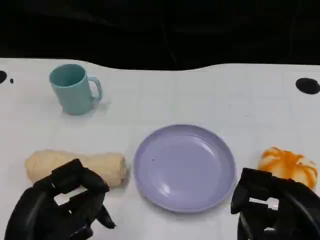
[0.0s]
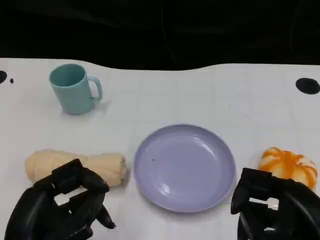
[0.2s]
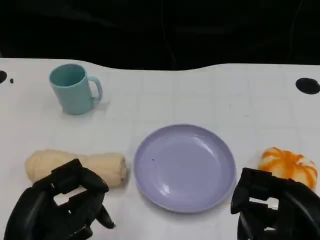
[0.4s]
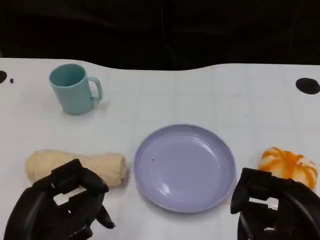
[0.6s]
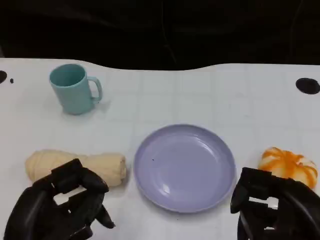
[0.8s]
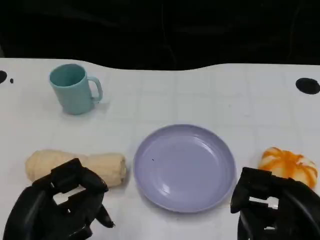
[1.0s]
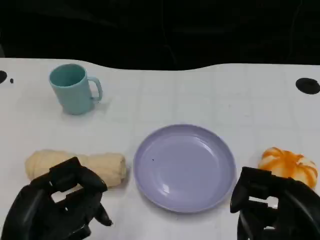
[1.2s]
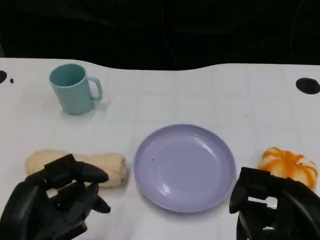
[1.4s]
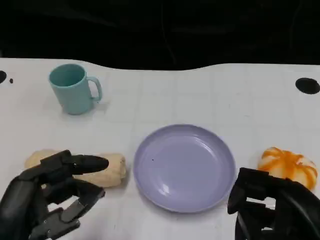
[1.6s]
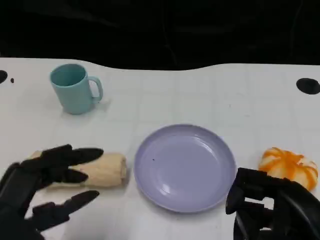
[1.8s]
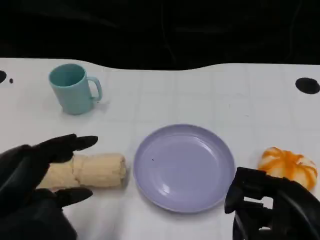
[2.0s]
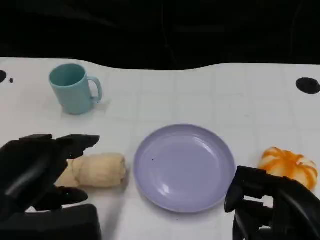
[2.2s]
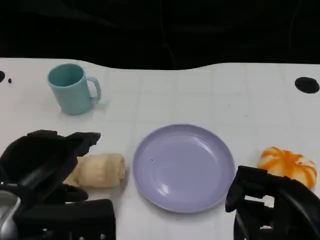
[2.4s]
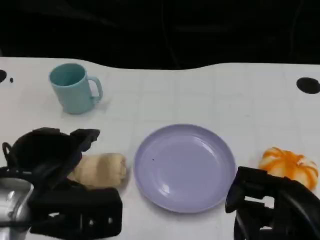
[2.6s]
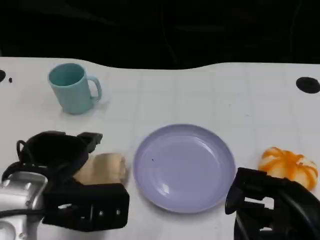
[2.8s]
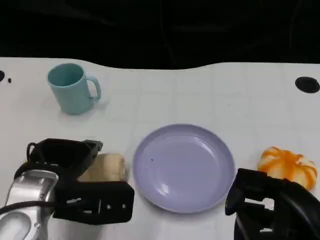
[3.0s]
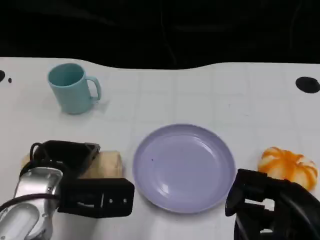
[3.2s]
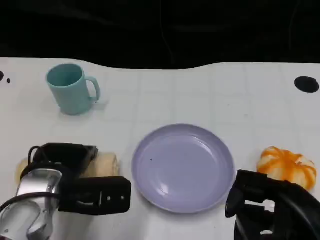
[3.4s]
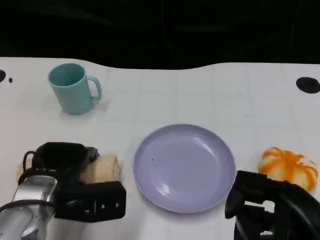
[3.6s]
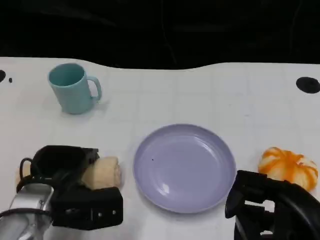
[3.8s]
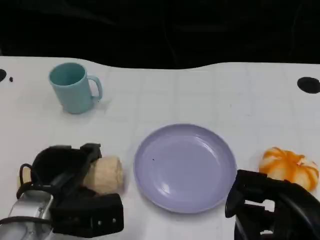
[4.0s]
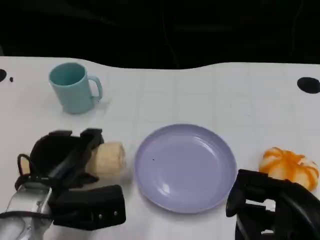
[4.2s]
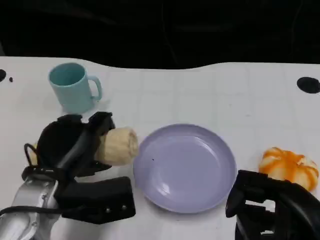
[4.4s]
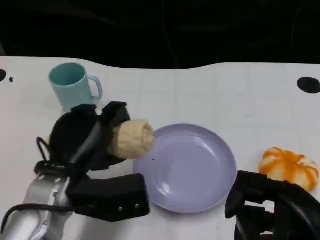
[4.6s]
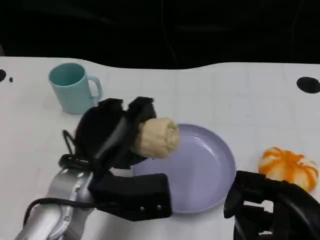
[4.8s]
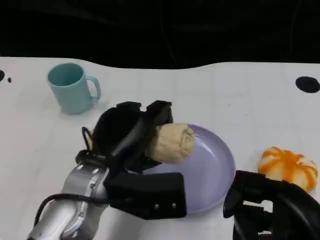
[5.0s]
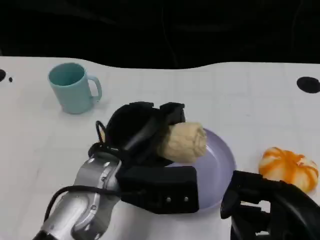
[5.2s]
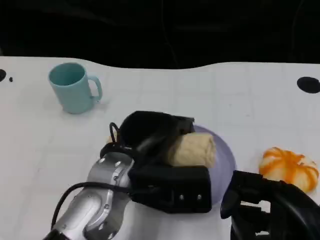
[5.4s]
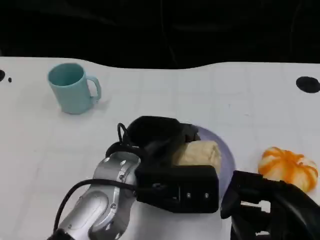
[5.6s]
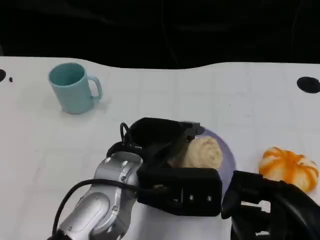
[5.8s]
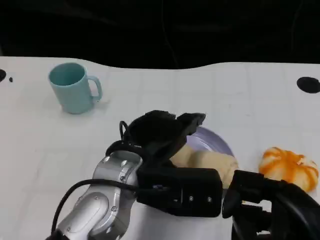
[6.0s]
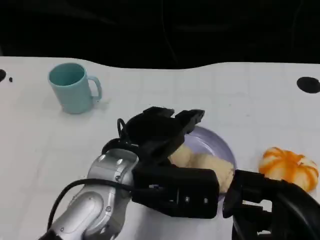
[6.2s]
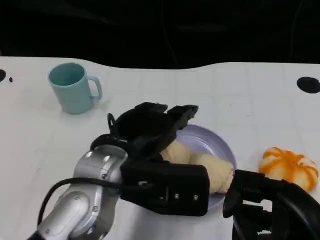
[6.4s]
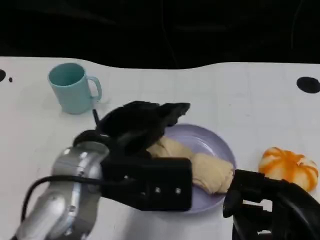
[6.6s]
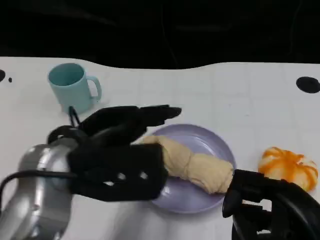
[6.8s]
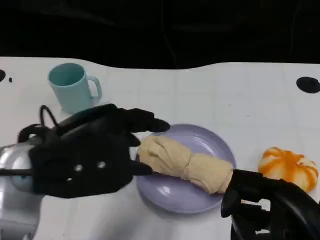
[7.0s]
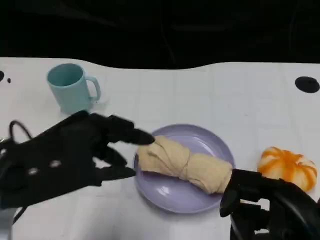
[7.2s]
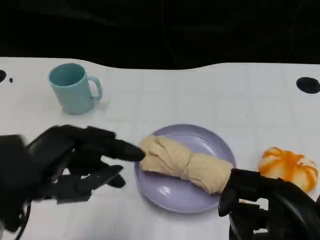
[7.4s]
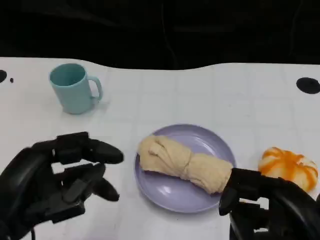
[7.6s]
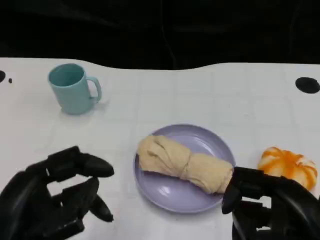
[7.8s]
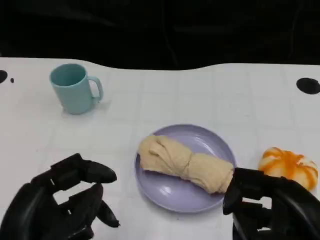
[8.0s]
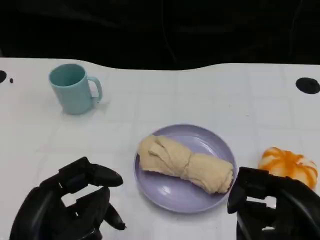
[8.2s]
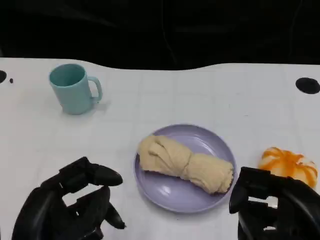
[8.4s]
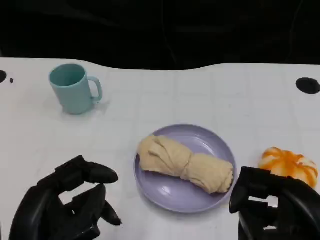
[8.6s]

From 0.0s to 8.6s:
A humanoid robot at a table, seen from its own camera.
Task of the whole recording: Grasp the towel on the left side of the plate with the left hand and place it into the plate.
From 0.0s to 1.4s: The hands make only small movements.
From 1.4s to 2.8s: The left hand travels forward by some 10 cm.
From 4.4s to 5.8s: The left hand is displaced to the right by some 10 cm.
From 5.8s to 7.2s: The left hand travels to the left and upward by some 15 cm.
From 7.2s to 8.6s: The left hand travels downward and backward by approximately 10 cm.

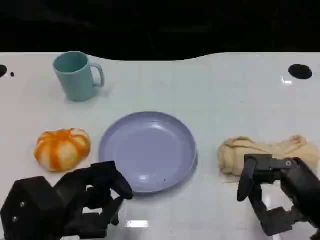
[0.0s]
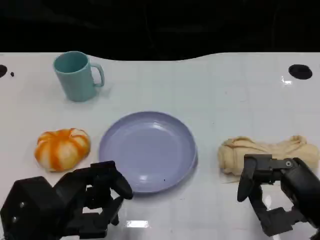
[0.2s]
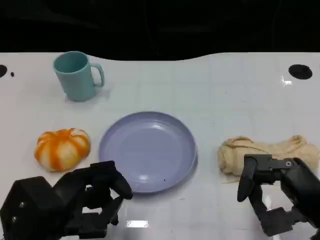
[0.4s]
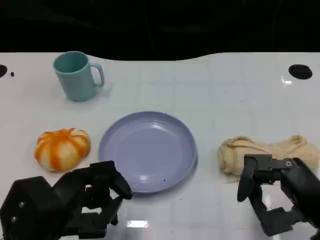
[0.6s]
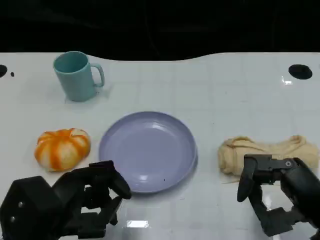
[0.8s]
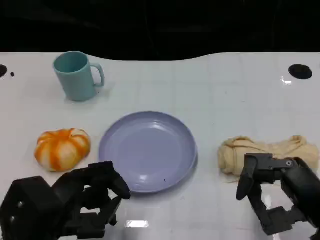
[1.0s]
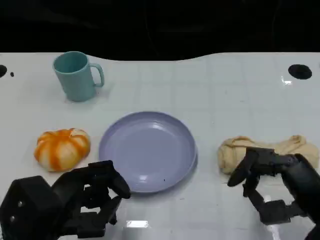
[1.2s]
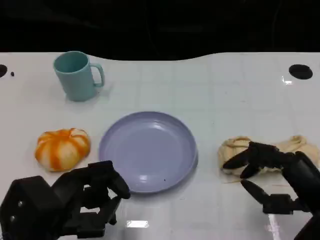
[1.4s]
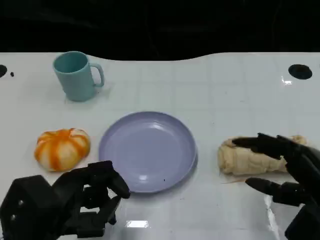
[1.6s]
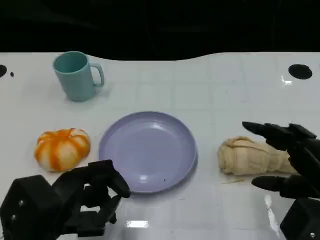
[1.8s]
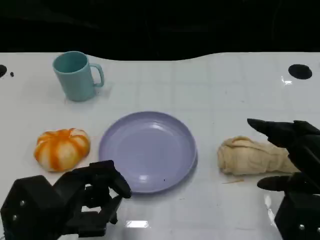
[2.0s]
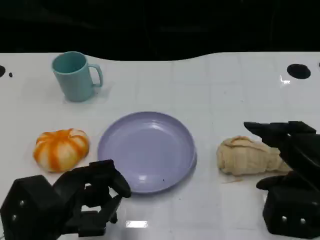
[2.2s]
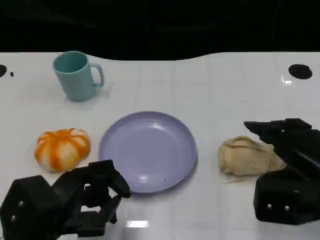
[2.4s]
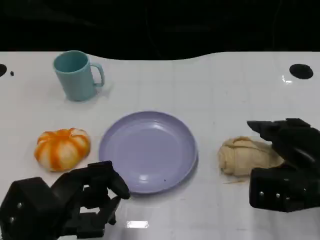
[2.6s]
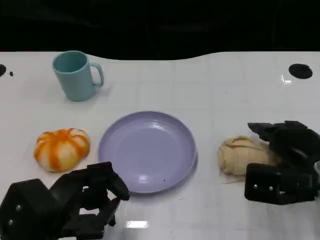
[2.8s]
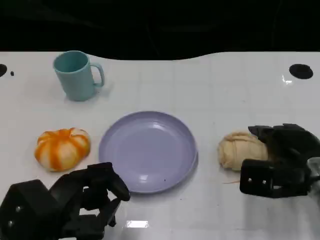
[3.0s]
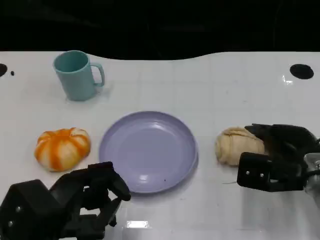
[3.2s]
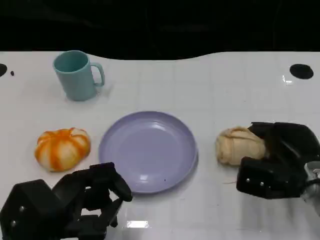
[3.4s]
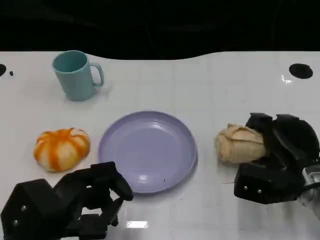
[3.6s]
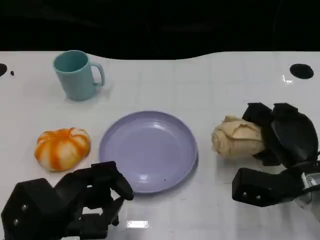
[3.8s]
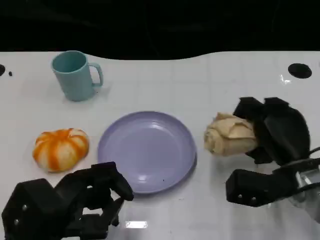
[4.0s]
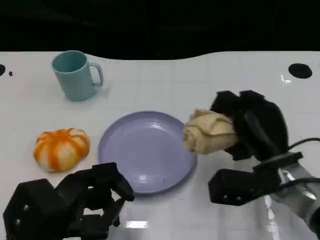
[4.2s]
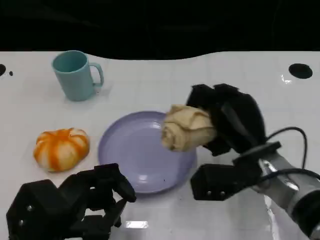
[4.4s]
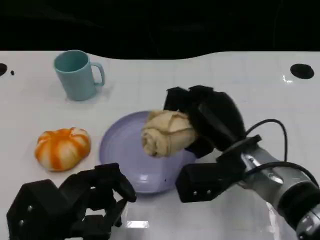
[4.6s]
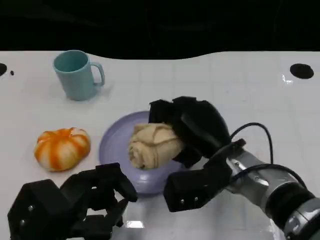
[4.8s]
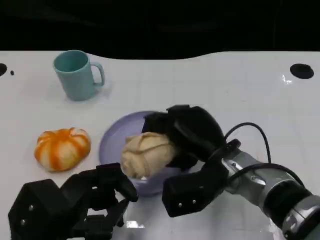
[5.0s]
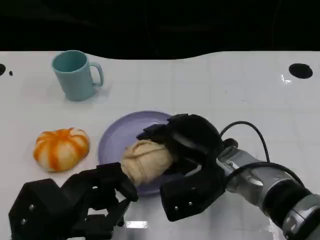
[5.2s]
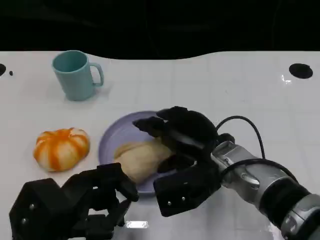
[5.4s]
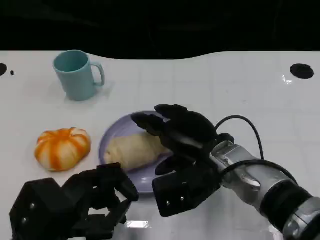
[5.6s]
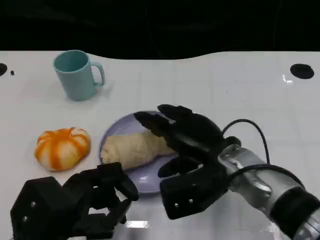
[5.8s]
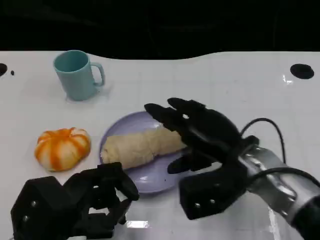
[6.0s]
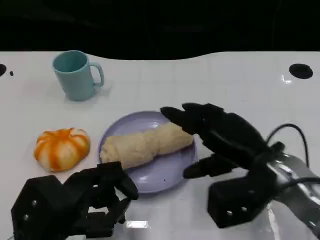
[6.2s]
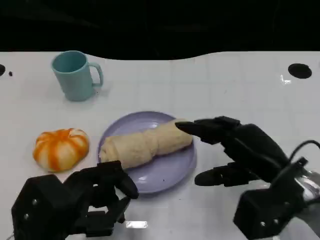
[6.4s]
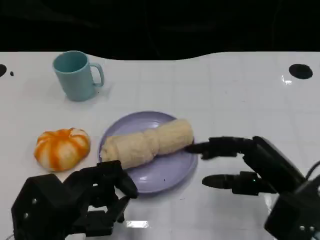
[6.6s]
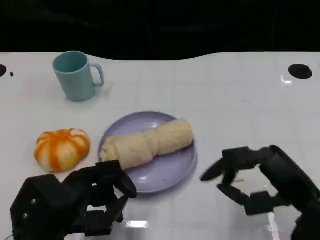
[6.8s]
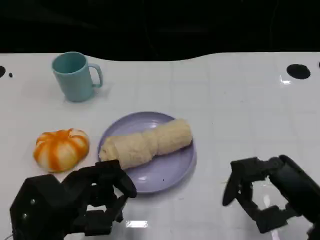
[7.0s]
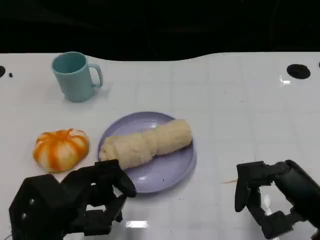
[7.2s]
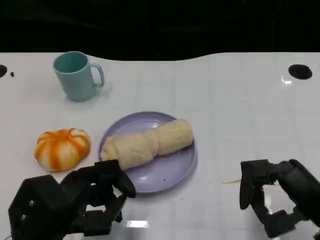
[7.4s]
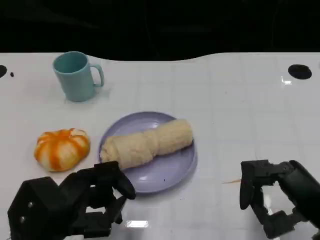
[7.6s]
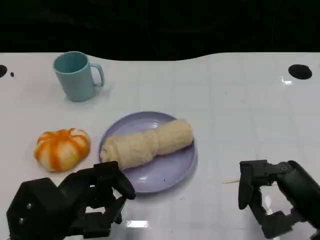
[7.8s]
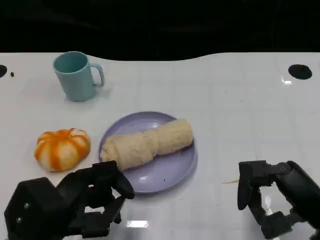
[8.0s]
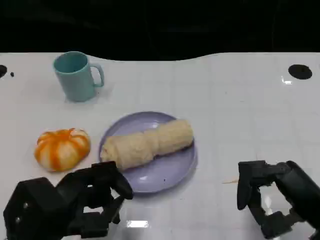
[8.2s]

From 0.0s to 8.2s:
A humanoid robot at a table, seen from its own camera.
Task of the whole recording: Grasp the towel on the left side of the plate with the left hand and place it into the plate.
From 1.6s to 3.2s: The right hand is displaced forward and downward by approximately 10 cm.
From 3.2s to 5.0s: The right hand travels to the left by about 15 cm.
From 5.0s to 6.6s: The right hand heads to the right and backward, covering roughly 15 cm.
From 6.6s to 8.2s: The hands stay close to where they were, moving slightly.

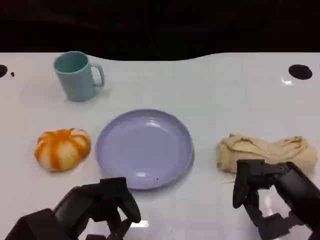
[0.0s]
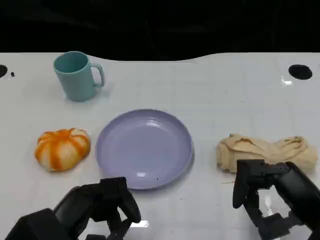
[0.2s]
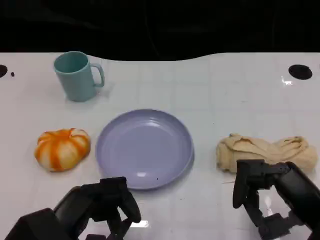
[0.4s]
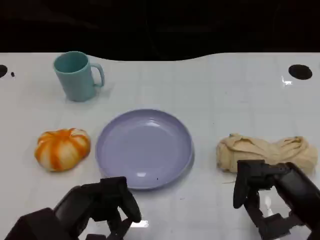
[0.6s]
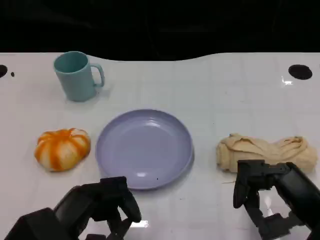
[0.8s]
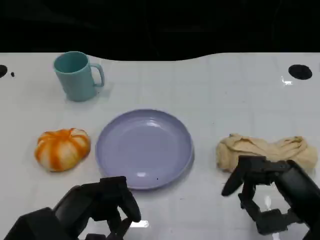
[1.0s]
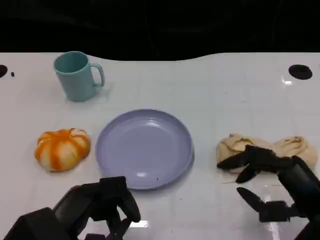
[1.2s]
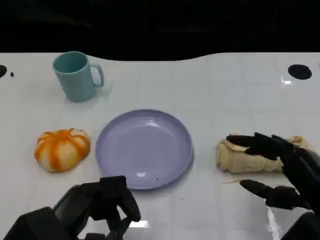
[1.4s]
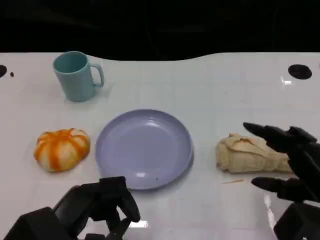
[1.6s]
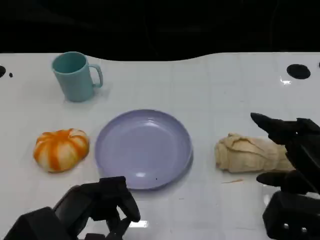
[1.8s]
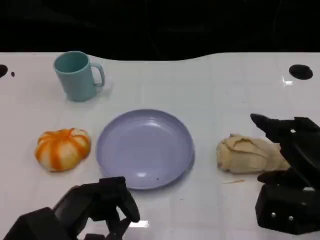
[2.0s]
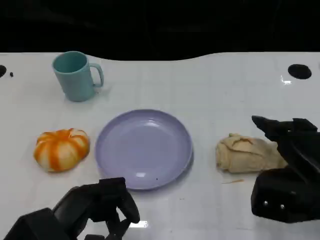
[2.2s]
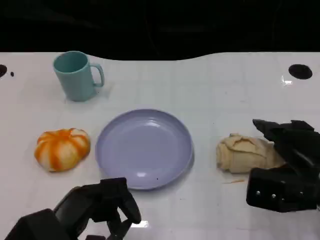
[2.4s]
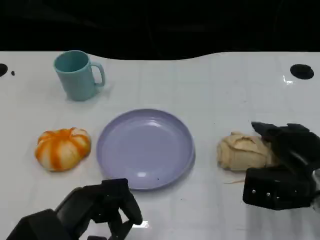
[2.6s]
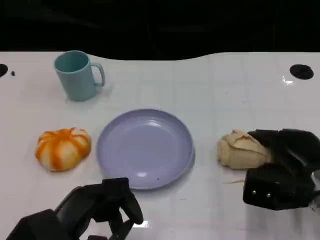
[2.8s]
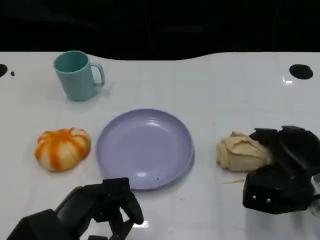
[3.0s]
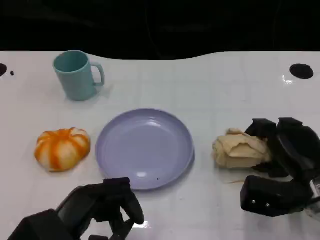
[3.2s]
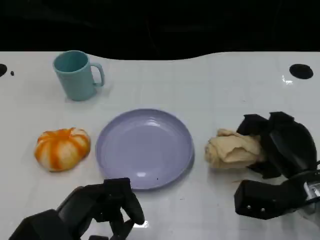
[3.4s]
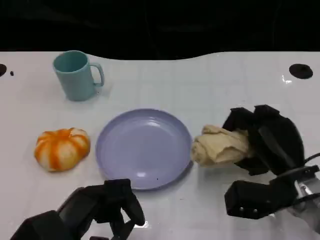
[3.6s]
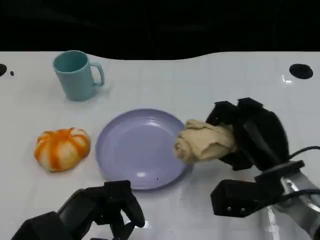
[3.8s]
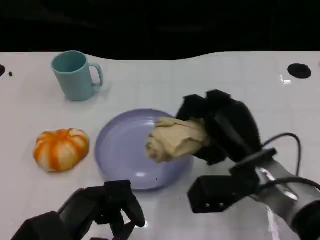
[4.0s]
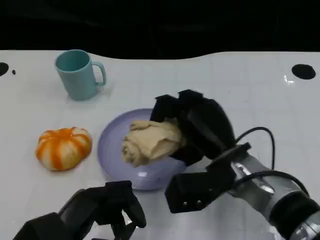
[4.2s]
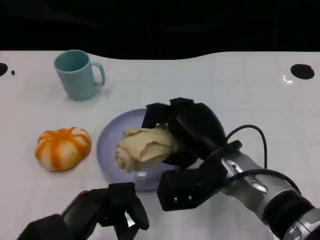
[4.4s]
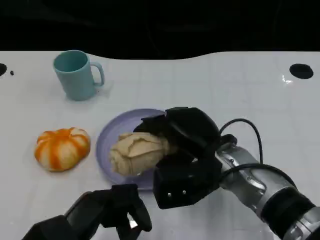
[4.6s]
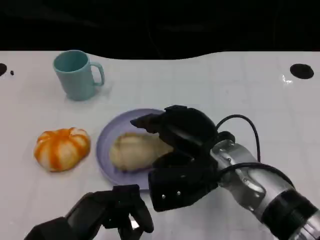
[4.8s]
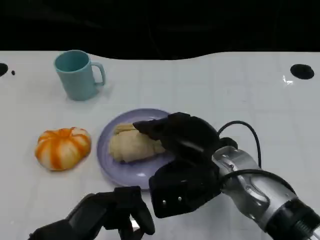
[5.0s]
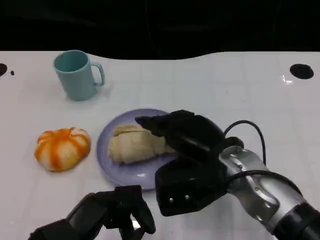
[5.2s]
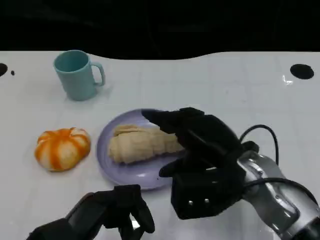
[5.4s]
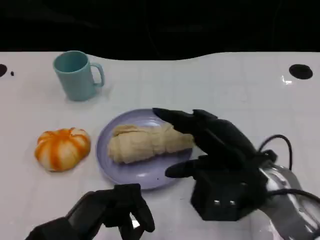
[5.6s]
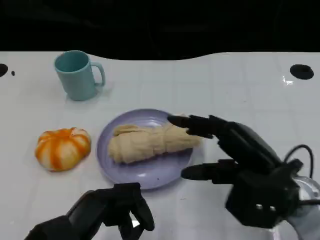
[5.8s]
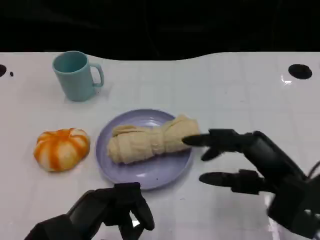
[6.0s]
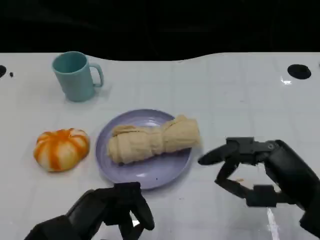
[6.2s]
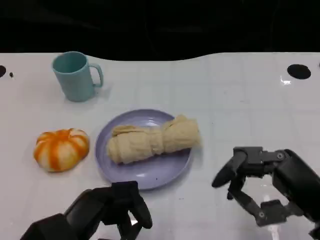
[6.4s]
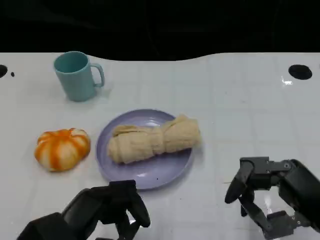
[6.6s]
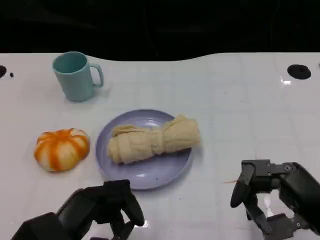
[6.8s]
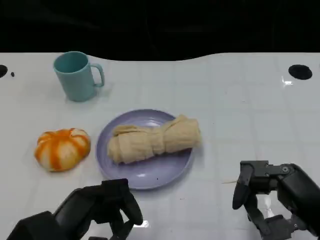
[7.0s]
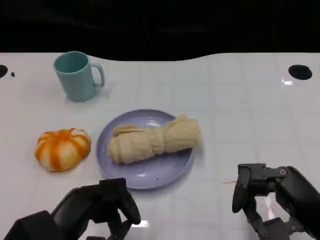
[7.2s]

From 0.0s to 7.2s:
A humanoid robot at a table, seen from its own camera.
Task of the whole recording: Grasp the towel on the left side of the plate with the left hand and place it into the plate.
From 1.4s to 2.8s: The right hand travels forward and downward by about 10 cm.
From 2.8s to 4.4s: The right hand shifts roughly 15 cm to the left.
From 4.4s to 5.8s: The right hand travels to the right and backward by about 10 cm.
From 5.8s to 7.2s: The right hand goes approximately 10 cm backward and to the right.
